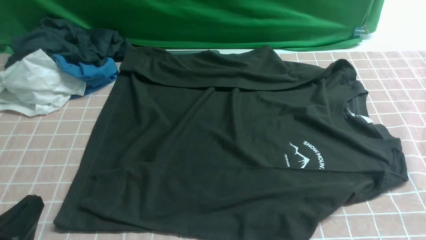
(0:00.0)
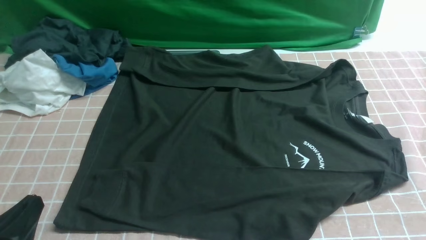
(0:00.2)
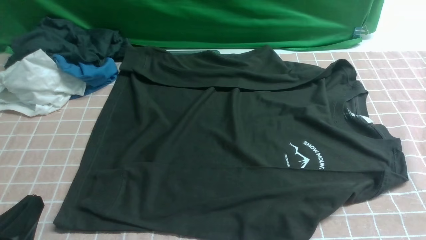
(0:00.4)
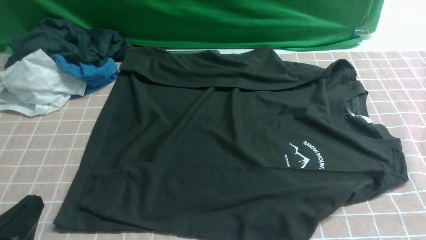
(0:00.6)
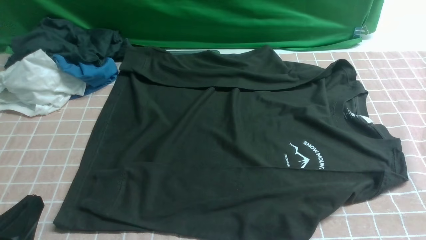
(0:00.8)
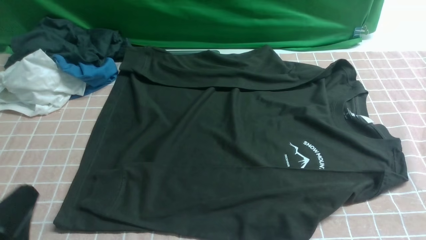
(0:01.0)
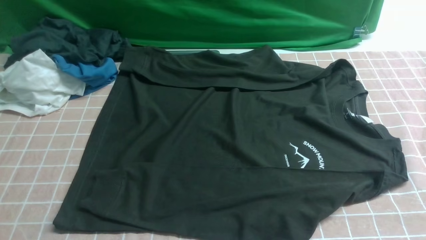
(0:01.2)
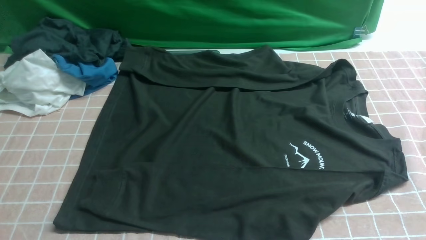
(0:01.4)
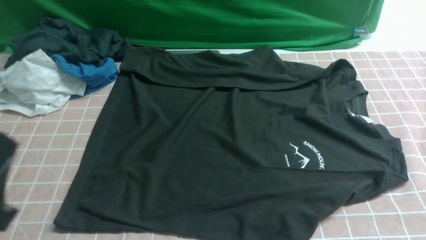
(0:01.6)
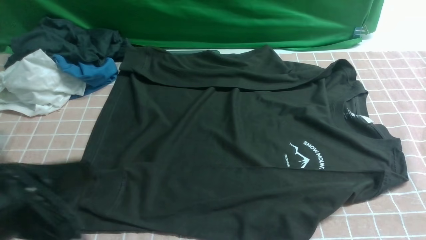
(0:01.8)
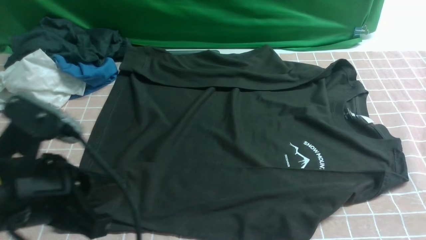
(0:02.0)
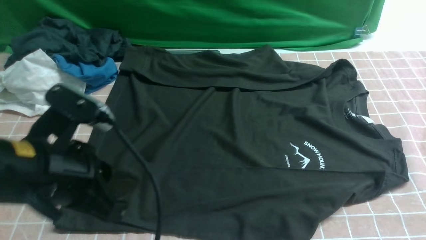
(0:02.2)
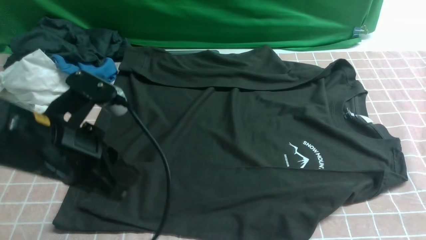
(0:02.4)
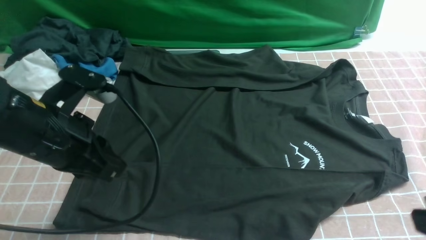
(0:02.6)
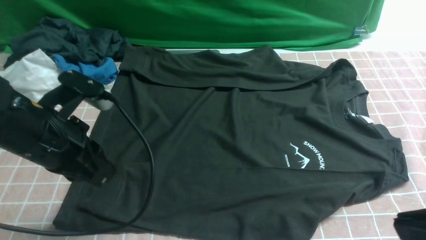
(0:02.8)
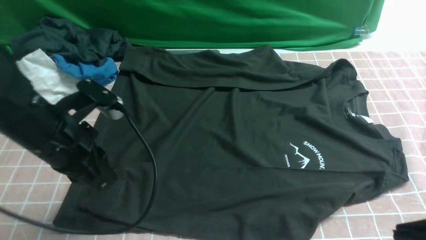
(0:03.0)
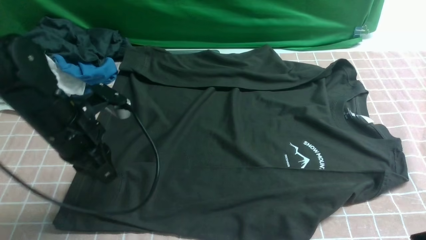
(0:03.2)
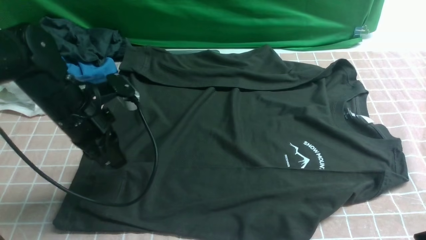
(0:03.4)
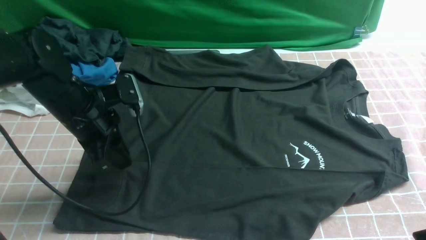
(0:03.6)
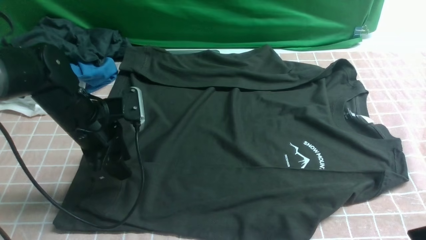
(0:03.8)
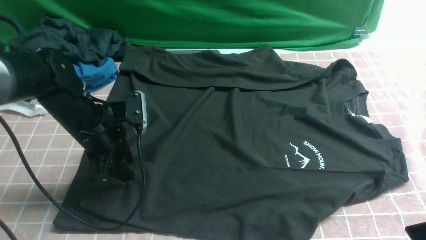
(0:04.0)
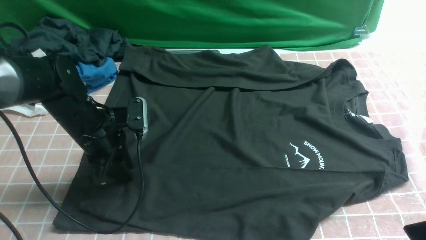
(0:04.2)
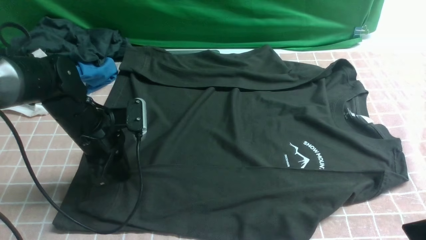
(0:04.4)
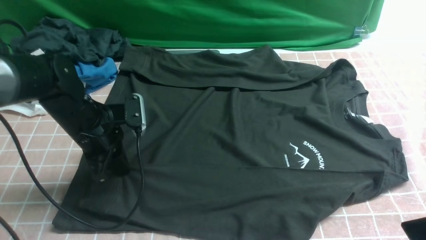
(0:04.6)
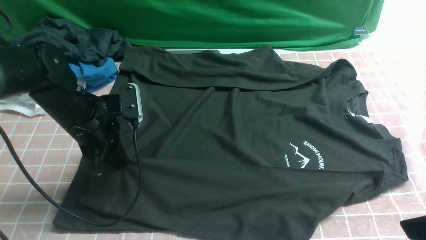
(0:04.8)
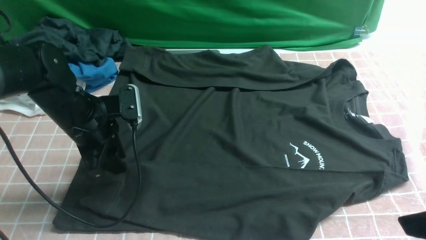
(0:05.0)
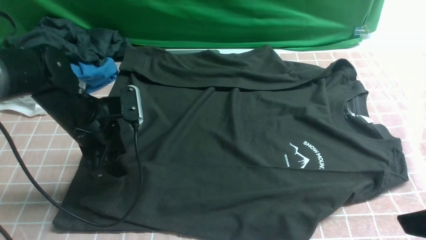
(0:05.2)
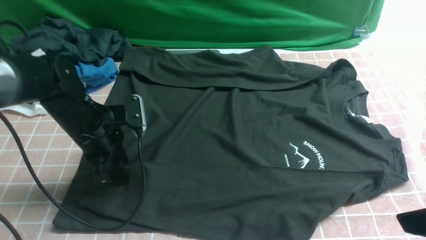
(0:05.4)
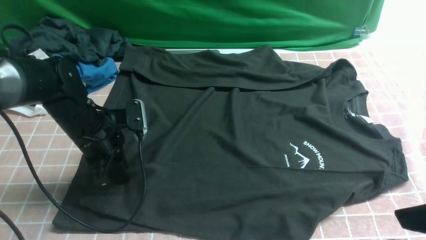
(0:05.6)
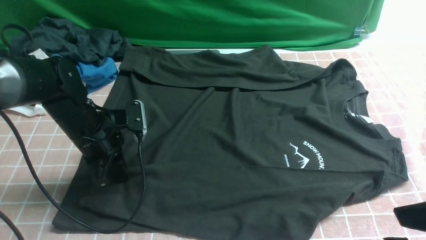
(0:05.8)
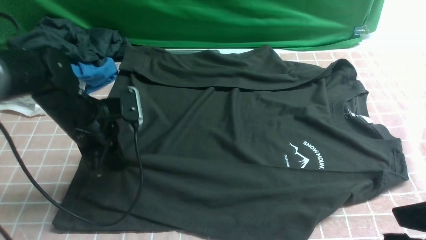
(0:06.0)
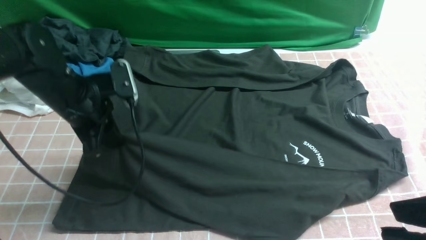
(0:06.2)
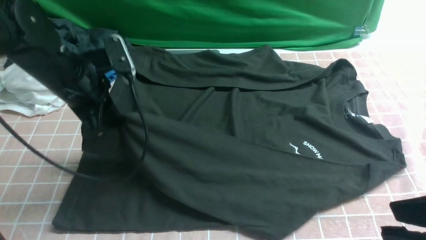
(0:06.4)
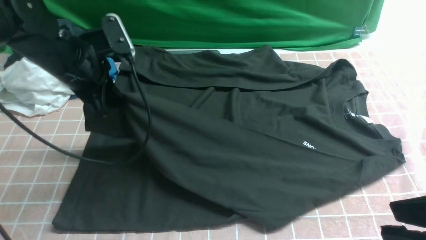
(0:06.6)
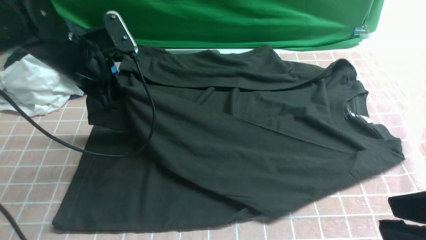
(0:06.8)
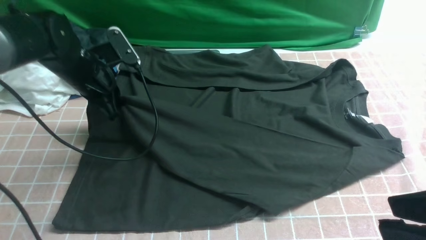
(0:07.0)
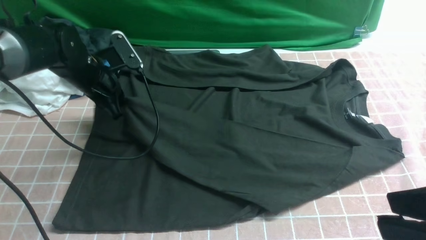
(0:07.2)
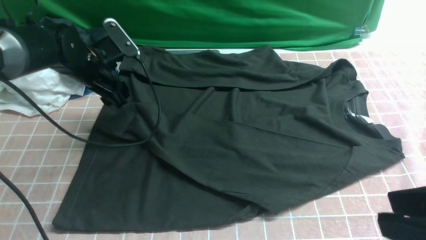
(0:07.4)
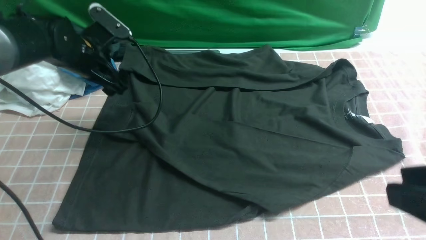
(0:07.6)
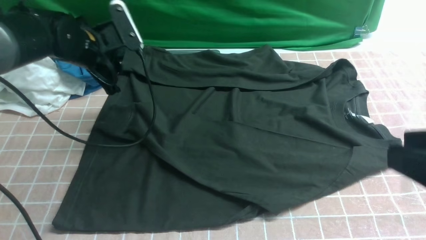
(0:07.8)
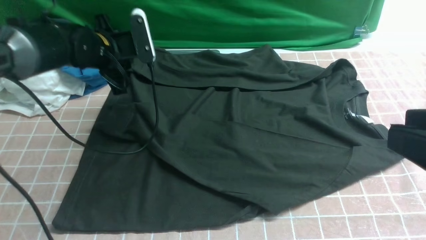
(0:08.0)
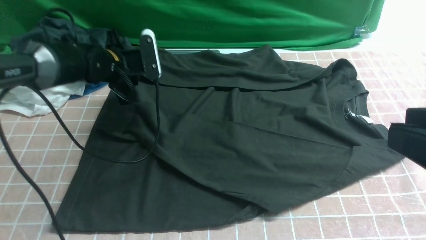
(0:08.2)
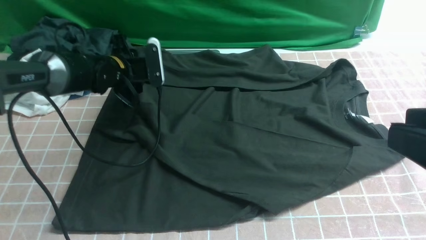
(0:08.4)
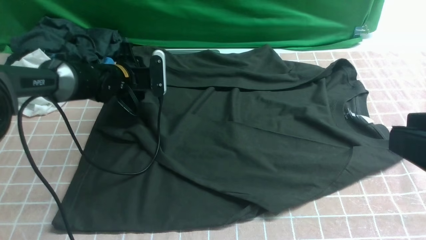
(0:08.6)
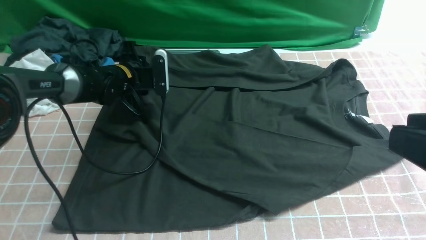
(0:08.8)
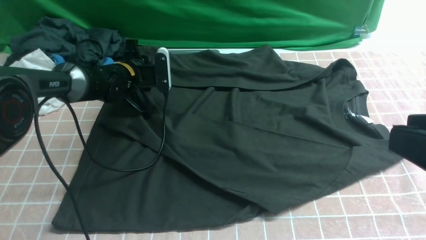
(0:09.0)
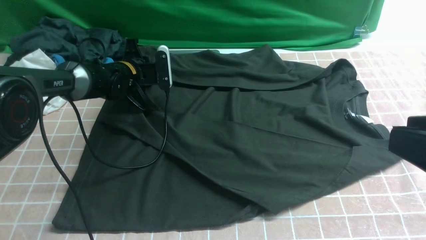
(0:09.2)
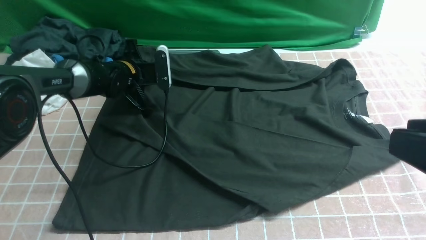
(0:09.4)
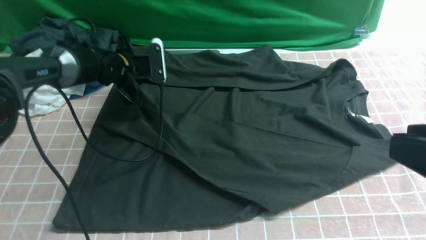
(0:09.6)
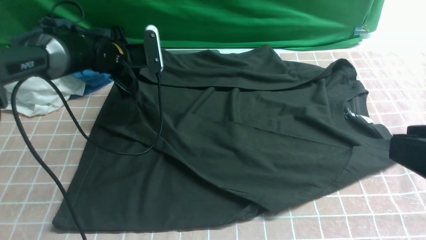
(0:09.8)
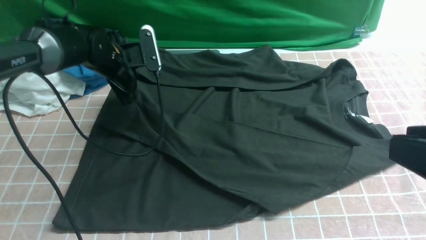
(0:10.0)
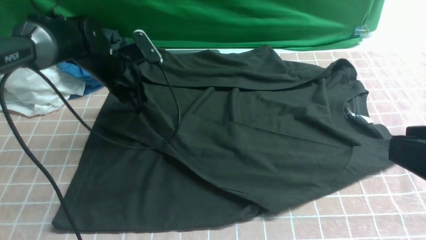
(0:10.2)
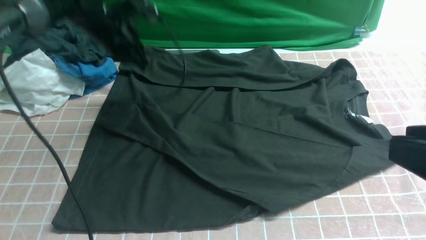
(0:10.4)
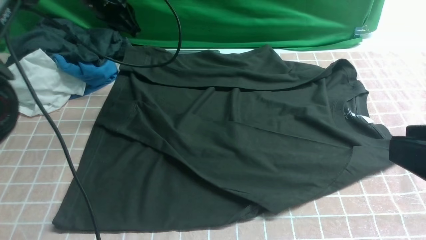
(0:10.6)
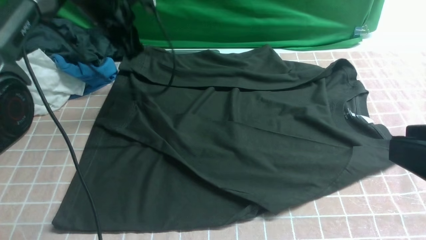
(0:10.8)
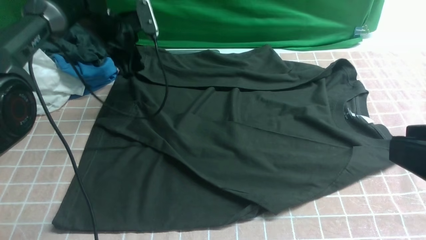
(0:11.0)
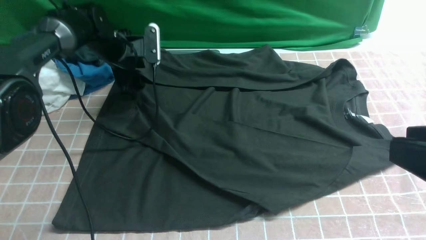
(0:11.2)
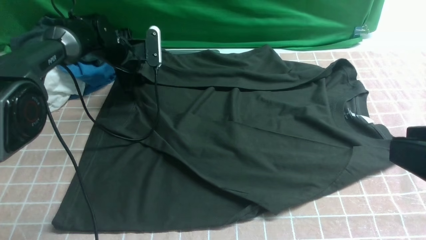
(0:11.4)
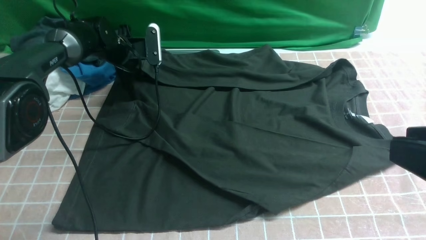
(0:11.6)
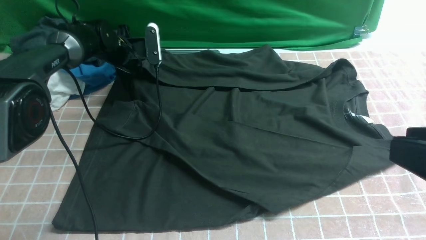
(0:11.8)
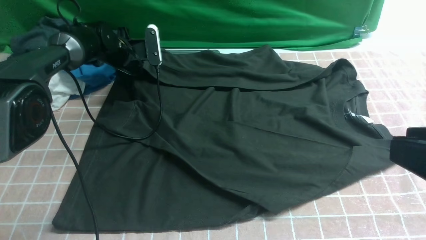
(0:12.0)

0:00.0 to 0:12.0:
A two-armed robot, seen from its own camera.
Step, 0:00.0 to 0:05.8: use the left arm to clamp the cuff closest to it.
Step, 0:06.0 to 0:07.4: use the left arm to drag and place the cuff at the centered position on the left edge of the fabric.
0:00.0 to 0:01.6: The left gripper heads upward, covering about 10 cm.
0:01.6 to 0:03.0: The left gripper moves forward, about 20 cm. Meanwhile the right gripper travels upward and to the left by roughly 15 cm.
0:03.0 to 0:04.4: The right gripper opens up. Meanwhile the left gripper heads downward and forward, covering roughly 10 cm, and opens and closes again.
0:04.4 to 0:06.0: The left gripper opens and closes again.
0:06.0 to 0:07.6: The left gripper moves forward, about 10 cm, and opens its fingers.
0:07.6 to 0:09.0: The left gripper goes roughly 10 cm downward and forward, and closes.
0:09.0 to 0:10.4: The left gripper travels upward by about 15 cm, and closes up.
0:10.4 to 0:12.0: The left gripper goes about 10 cm downward and forward, and opens its fingers.

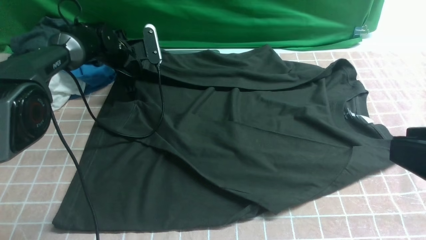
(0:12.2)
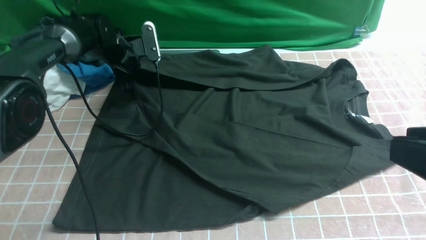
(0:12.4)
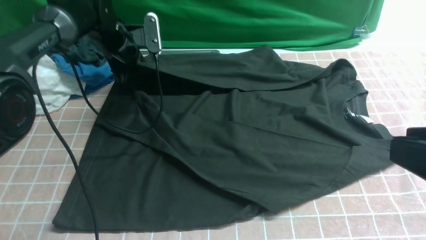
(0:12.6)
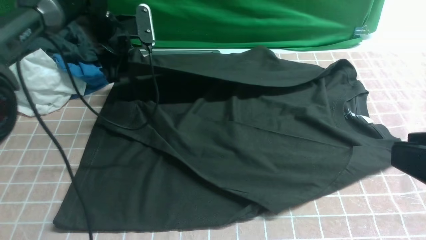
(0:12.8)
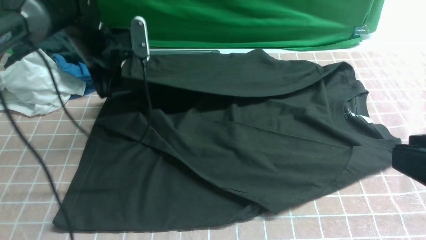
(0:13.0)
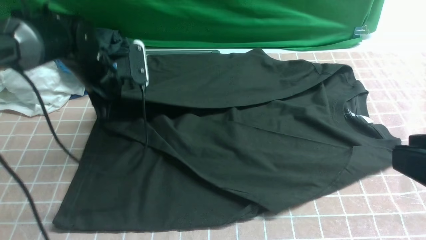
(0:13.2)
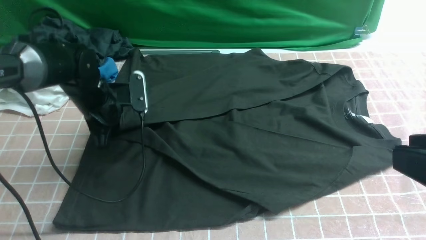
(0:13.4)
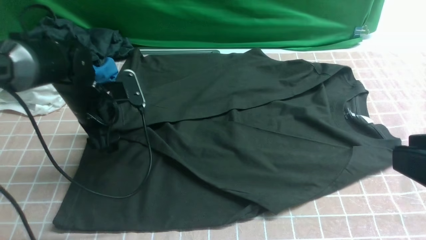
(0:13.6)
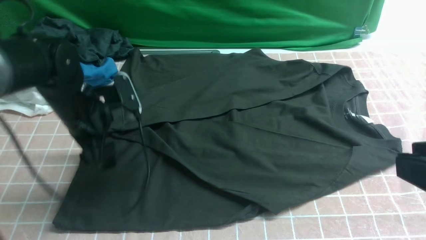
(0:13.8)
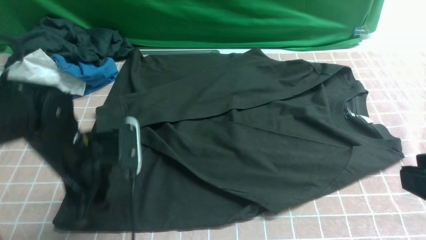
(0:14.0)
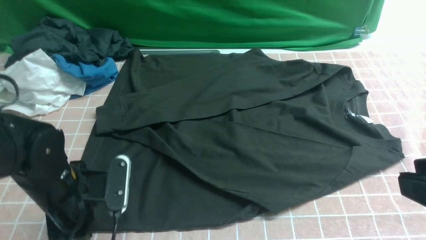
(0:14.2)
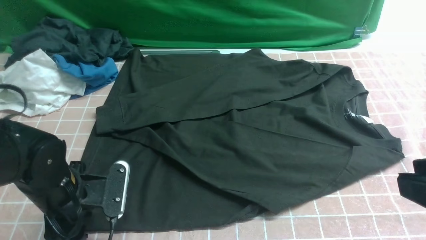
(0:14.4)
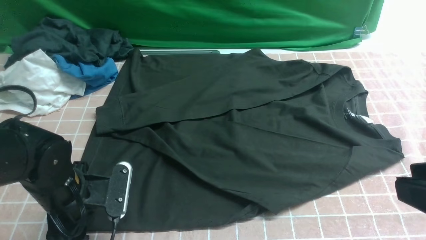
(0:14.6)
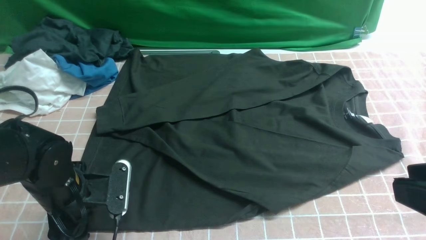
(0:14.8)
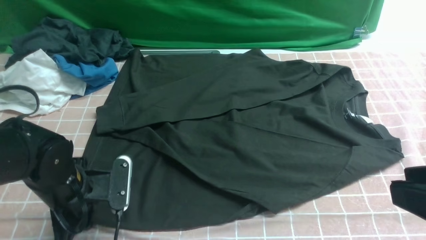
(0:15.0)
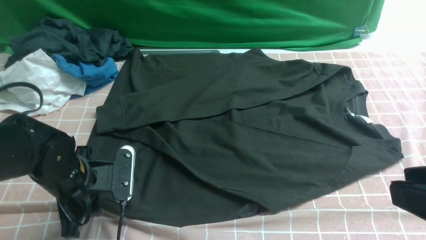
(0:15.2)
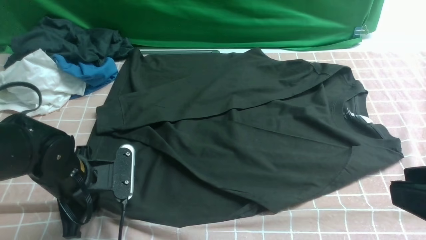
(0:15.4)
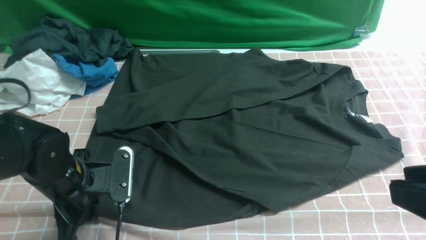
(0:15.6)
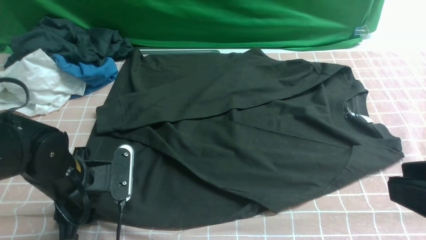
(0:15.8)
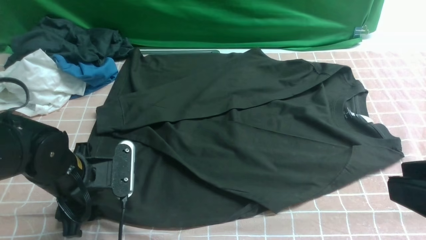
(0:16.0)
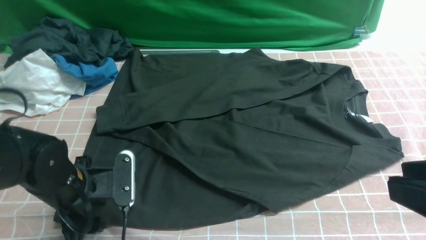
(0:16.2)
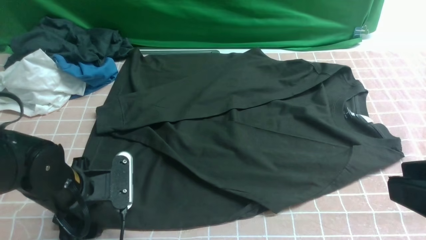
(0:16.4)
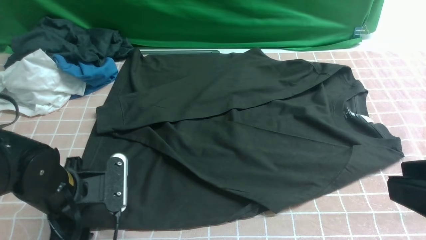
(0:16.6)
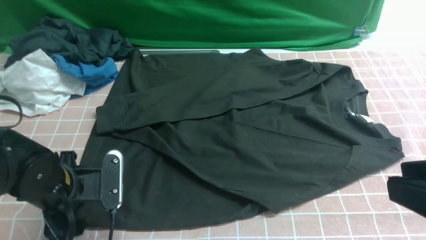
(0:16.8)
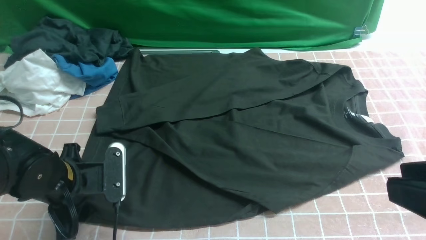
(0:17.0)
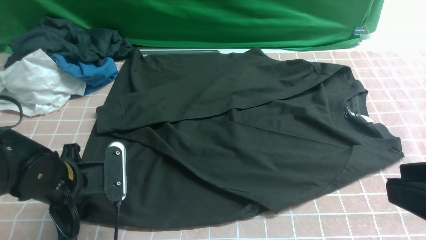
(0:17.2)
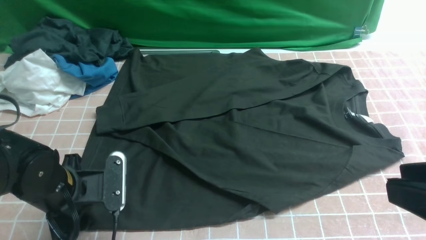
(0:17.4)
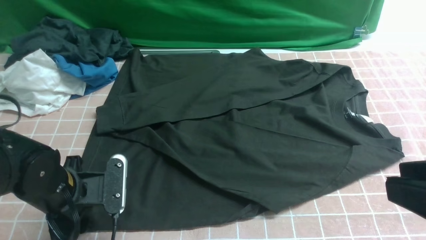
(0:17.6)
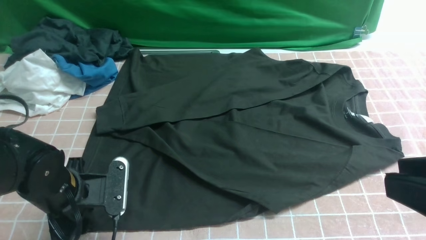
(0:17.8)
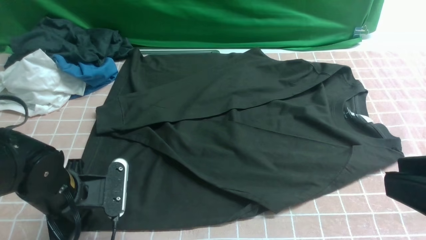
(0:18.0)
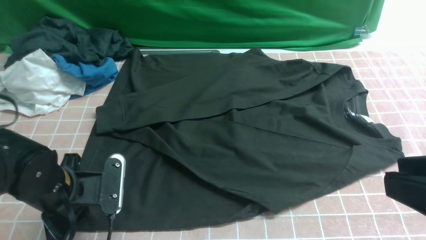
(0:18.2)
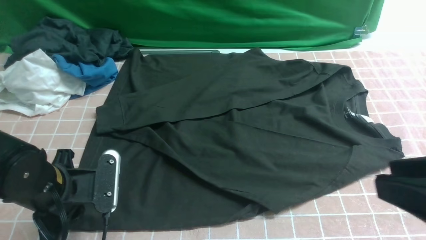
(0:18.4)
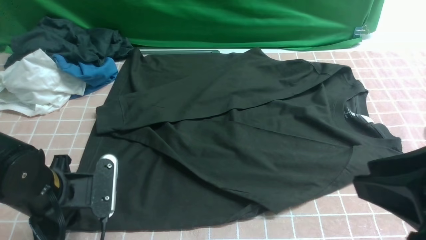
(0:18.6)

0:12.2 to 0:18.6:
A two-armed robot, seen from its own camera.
Step, 0:12.2 to 0:13.6: use the left arm to drag and drop the cuff onto the cuff closest to the left arm.
0:12.2 to 0:13.8: The left gripper heads backward, covering approximately 20 cm, and opens up.
0:13.8 to 0:15.4: The left gripper is displaced backward by some 10 cm, and closes its fingers.
0:15.4 to 0:17.0: The left gripper opens its fingers.
0:17.0 to 0:18.6: The left gripper closes up.
